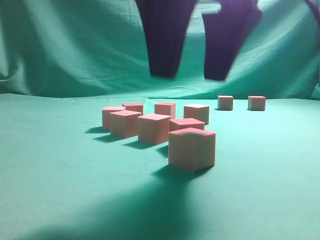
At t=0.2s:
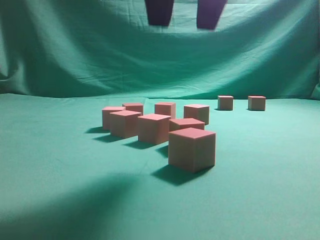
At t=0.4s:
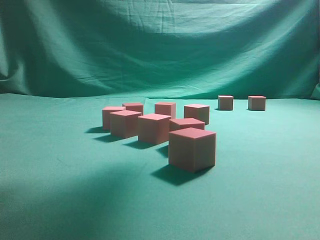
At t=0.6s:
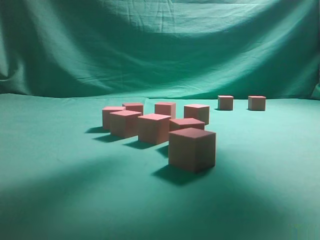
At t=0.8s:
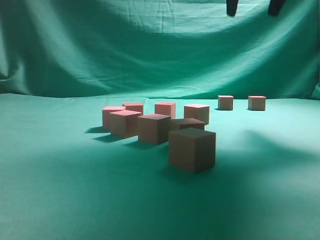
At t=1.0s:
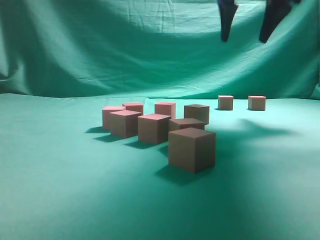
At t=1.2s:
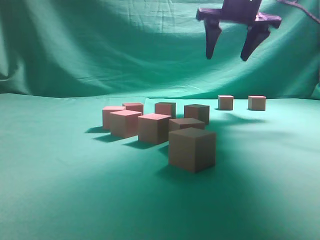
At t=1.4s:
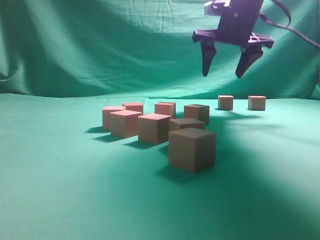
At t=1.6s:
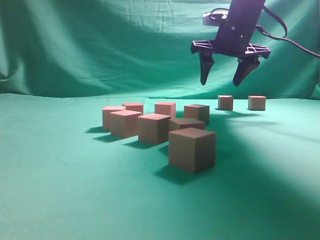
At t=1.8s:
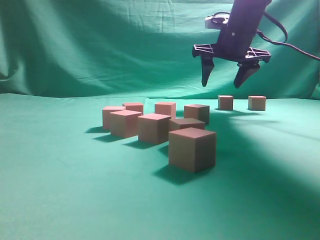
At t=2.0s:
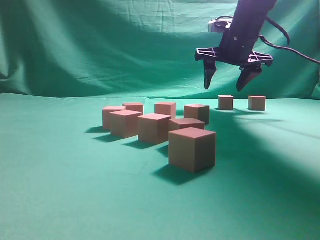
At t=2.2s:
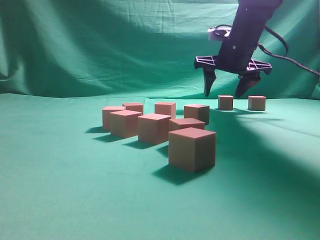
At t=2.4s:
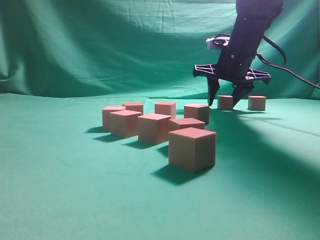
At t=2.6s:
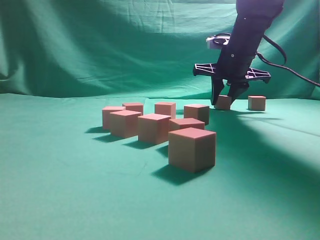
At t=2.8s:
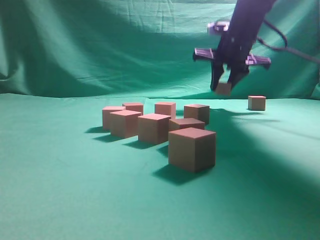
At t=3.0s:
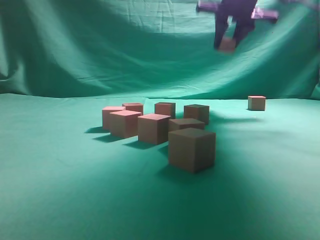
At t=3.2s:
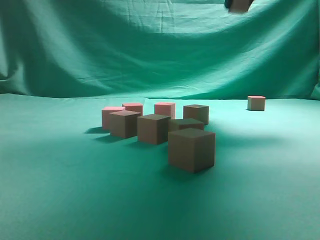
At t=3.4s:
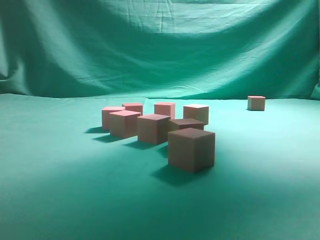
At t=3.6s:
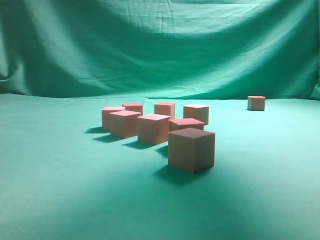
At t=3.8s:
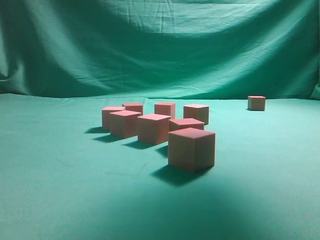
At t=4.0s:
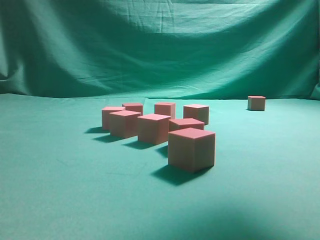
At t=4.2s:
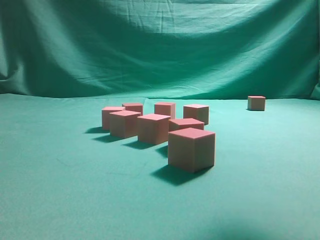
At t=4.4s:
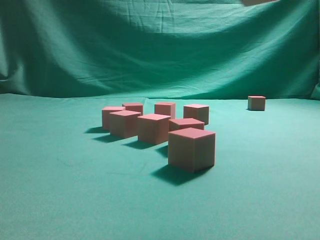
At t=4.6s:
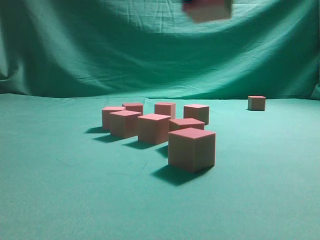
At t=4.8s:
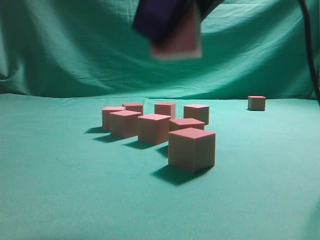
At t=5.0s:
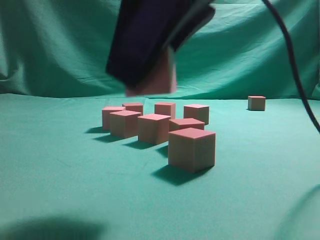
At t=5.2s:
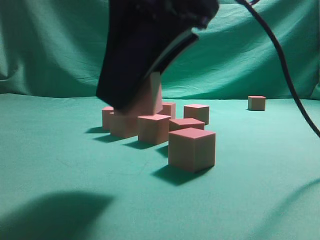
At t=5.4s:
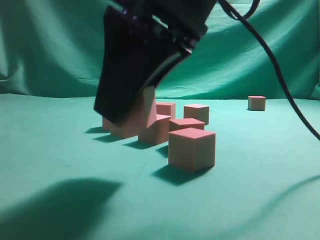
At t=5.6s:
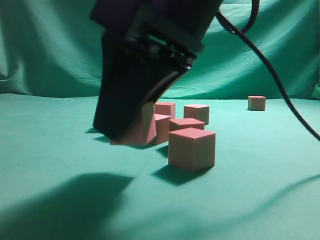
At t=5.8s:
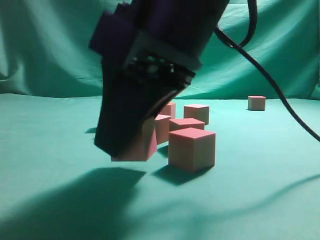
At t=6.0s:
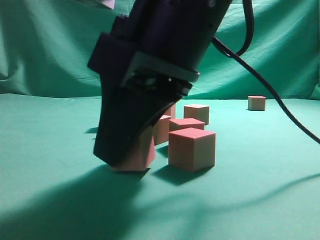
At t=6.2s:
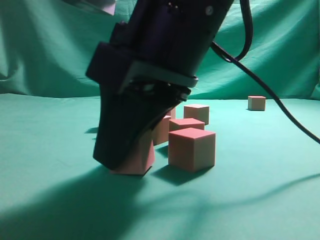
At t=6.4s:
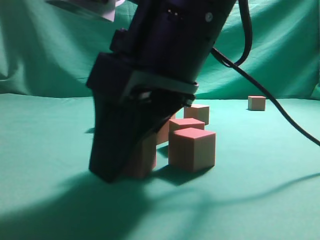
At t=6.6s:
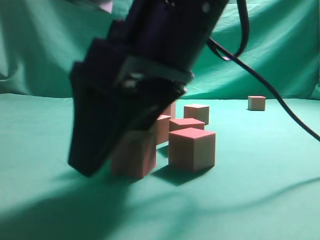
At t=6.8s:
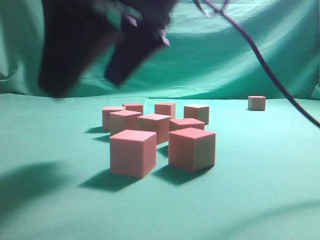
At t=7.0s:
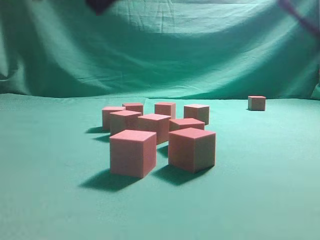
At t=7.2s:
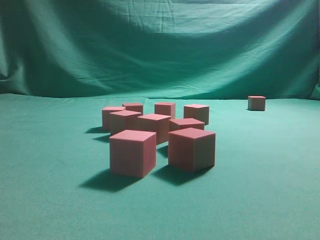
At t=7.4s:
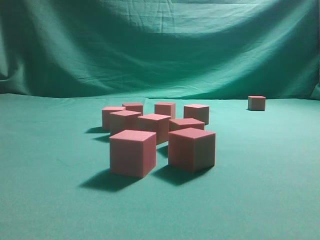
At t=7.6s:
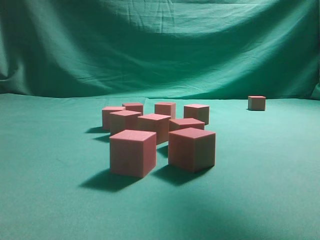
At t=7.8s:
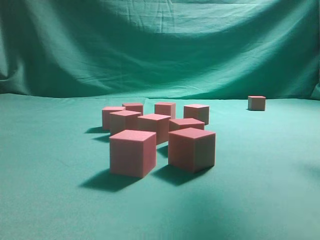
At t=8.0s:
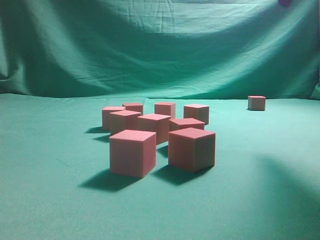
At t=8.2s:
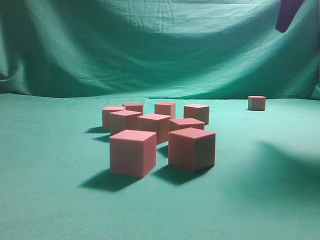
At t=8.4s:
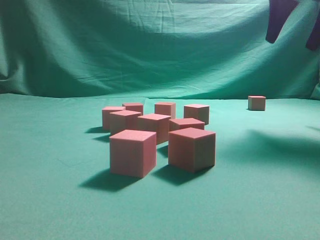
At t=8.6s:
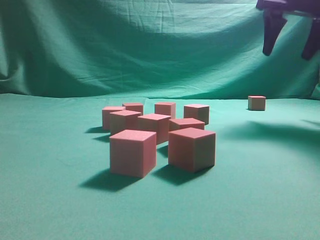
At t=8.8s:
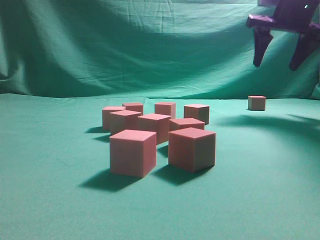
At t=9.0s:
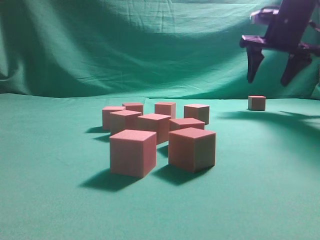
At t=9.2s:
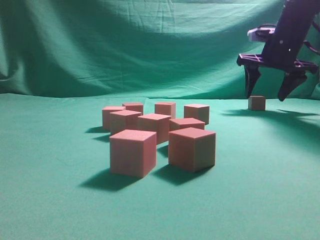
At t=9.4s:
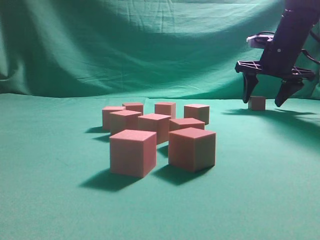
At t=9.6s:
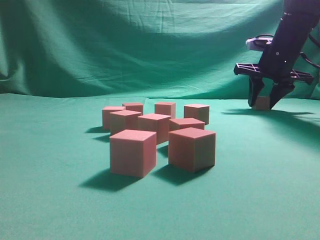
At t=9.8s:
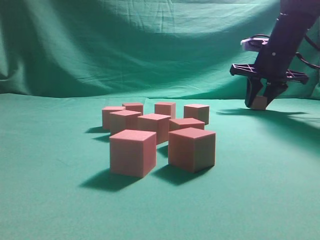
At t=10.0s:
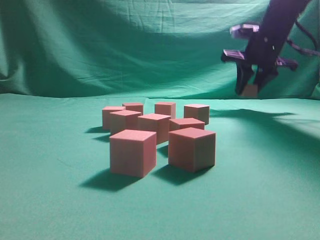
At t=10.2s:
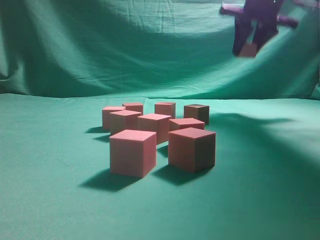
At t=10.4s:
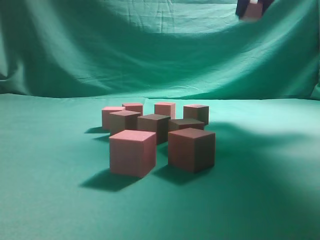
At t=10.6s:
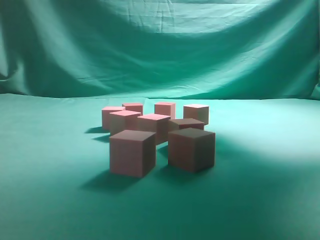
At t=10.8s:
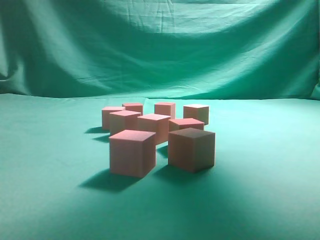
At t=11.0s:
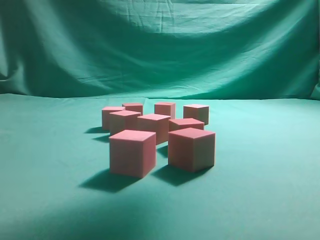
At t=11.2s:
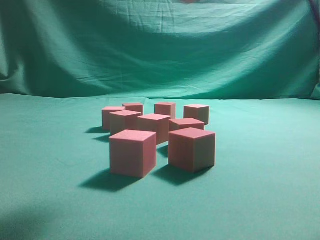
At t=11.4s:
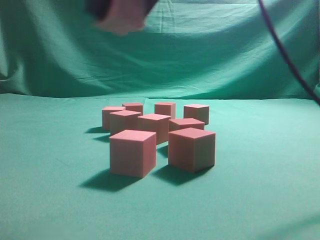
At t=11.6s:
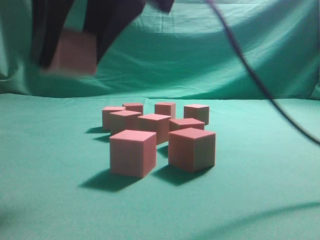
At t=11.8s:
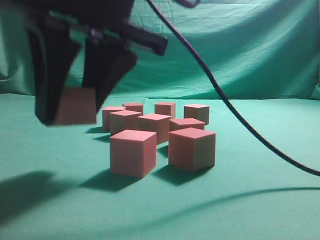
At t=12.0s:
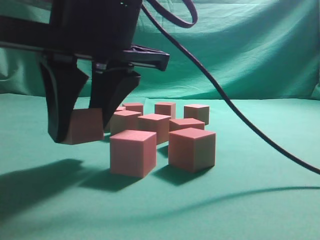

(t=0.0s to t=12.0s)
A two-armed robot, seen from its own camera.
Task of the whole recording: pick up the multiple cubes in two columns one by one and place them in another position on the table.
Step, t=0.0s - t=2.8s: Pick up the block on the table.
Step, t=3.0s - t=6.6s: Place the block at the correct position to assemble the letter S.
Step, t=7.0s - t=9.8s: Pick up the block on the table.
t=0.0s - t=1.6s: The right gripper is displaced forward by roughly 30 cm.
t=1.6s - t=3.0s: The right gripper travels upward by about 10 cm, and closes up.
t=3.0s - t=4.4s: The right gripper goes roughly 30 cm backward.
t=4.4s - t=6.0s: The right gripper goes some 15 cm downward and to the left.
t=6.0s - t=7.6s: The right gripper shifts roughly 20 cm upward and to the right, and opens up.
t=7.6s - t=9.0s: The right gripper moves forward and downward, some 30 cm.
t=9.0s - t=10.4s: The right gripper goes roughly 15 cm upward and backward, and closes.
t=10.4s - t=12.0s: The right gripper moves to the left, backward and downward, roughly 35 cm.

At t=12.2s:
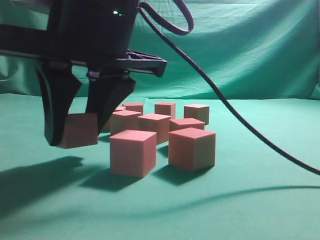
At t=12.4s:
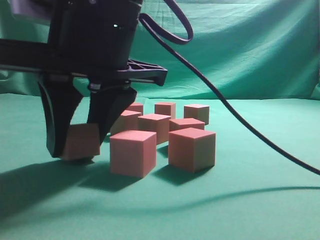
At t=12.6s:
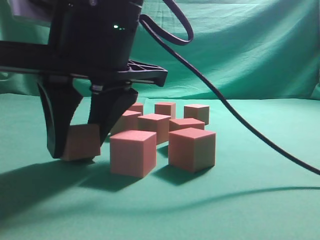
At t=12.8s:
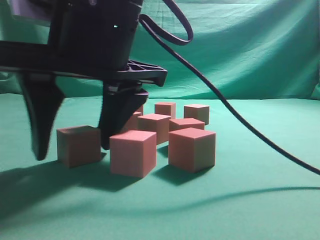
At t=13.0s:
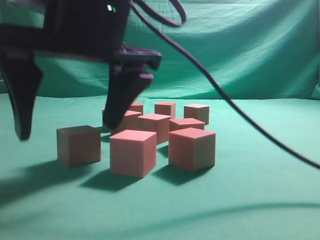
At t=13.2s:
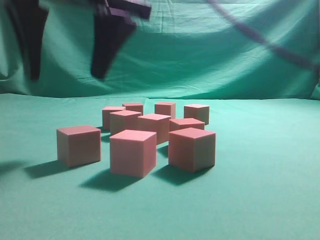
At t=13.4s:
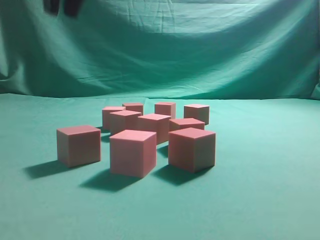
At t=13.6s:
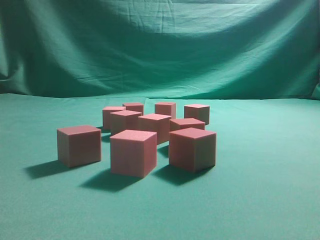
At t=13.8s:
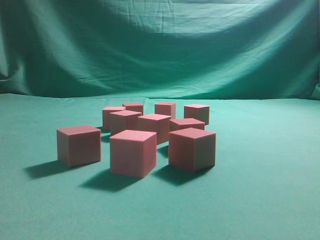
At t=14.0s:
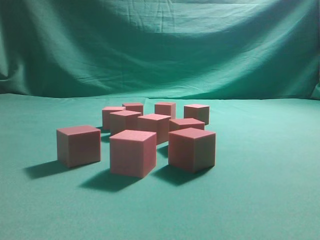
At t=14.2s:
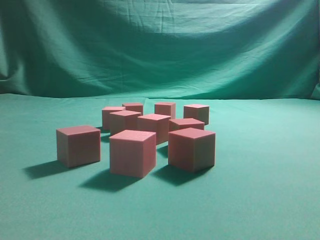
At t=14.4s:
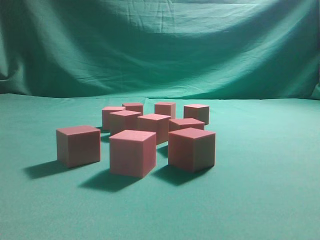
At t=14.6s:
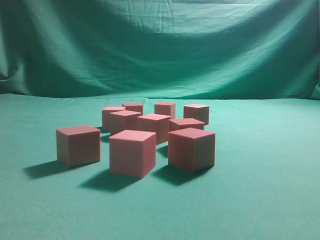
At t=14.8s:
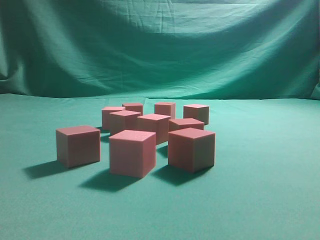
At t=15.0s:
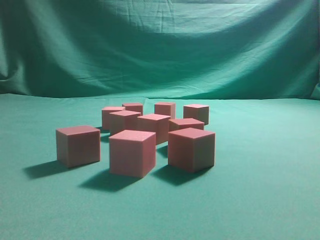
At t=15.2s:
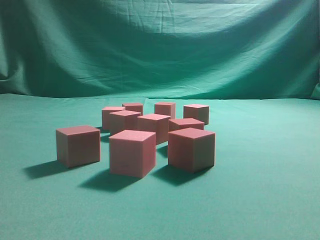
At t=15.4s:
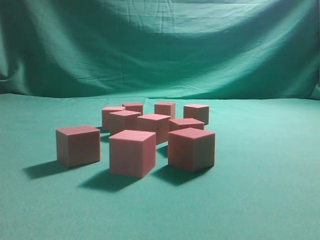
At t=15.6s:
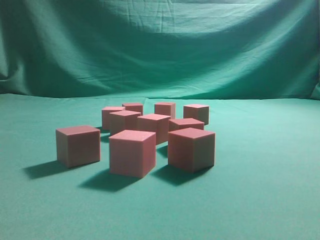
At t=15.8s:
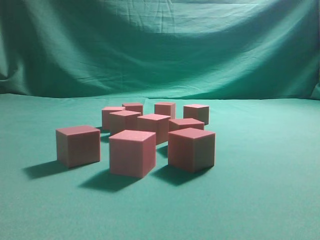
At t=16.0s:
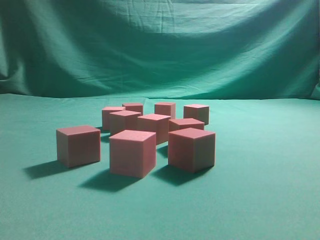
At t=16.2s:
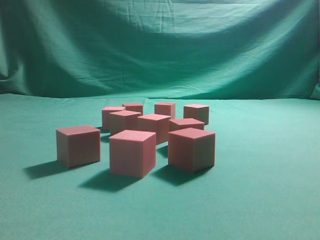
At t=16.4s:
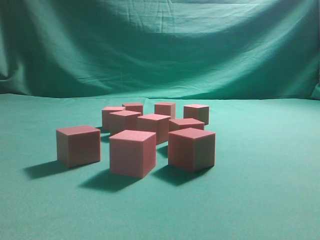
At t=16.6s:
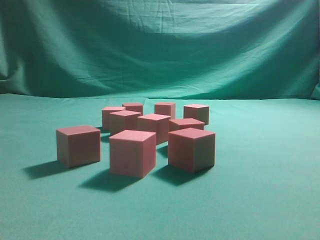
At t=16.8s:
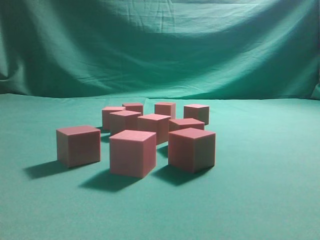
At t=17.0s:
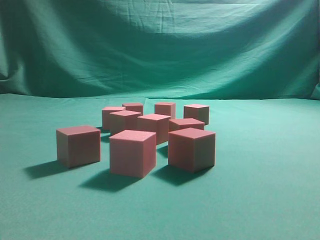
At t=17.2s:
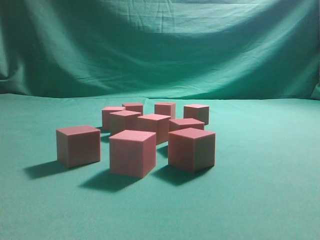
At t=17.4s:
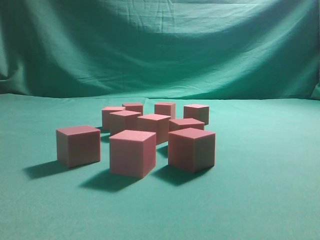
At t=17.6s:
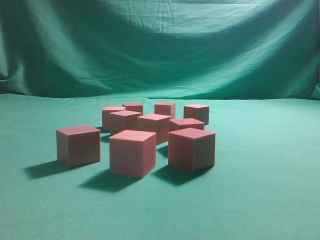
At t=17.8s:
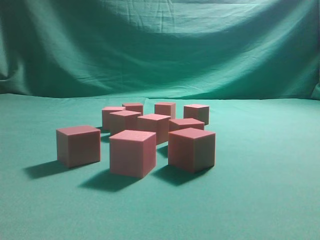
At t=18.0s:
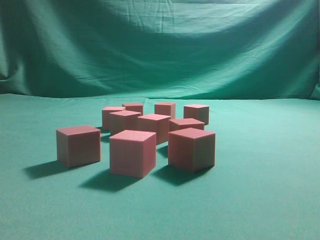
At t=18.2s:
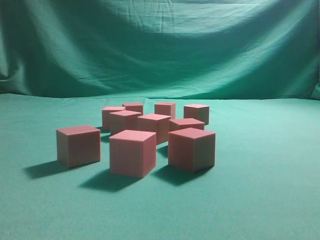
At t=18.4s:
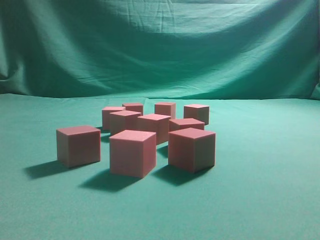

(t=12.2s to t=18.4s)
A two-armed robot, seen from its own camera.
Task of the whole recording: pick up the multiple cubes in two columns one by one and place them in another position on the table.
t=12.2s - t=13.8s: The right gripper shifts some 25 cm upward, and closes its fingers.
